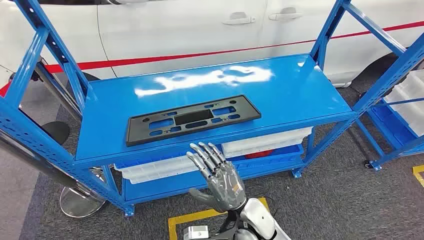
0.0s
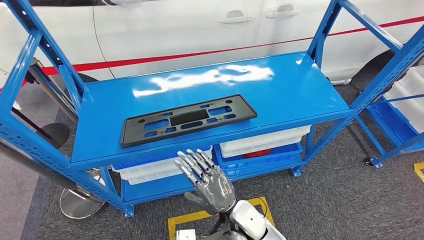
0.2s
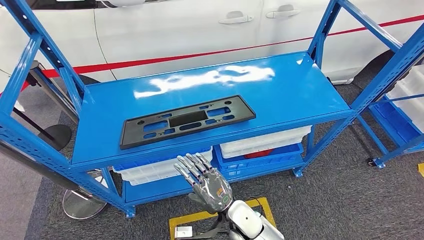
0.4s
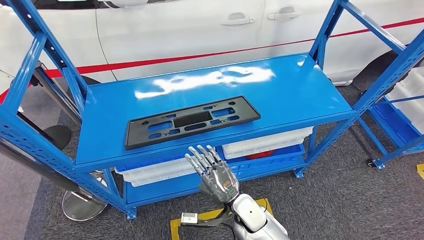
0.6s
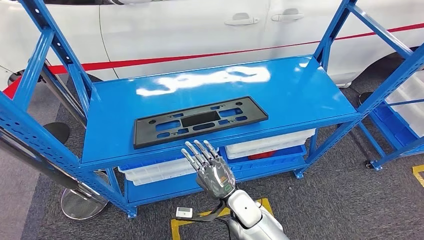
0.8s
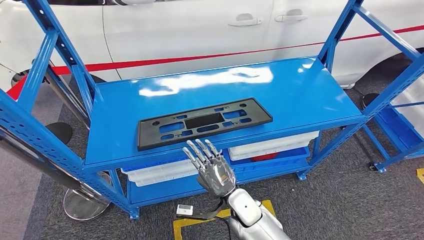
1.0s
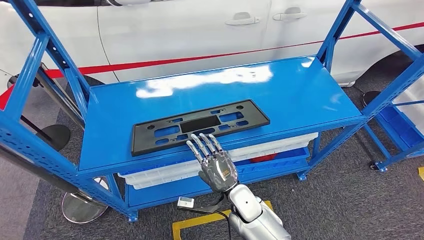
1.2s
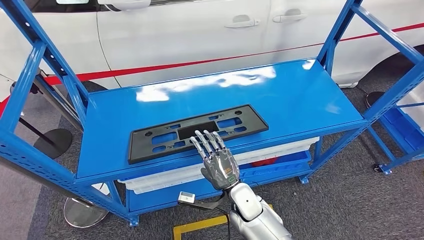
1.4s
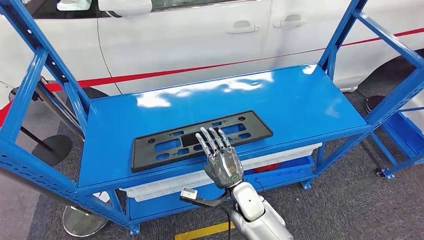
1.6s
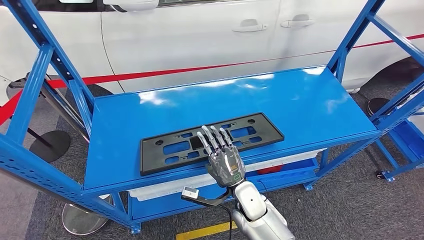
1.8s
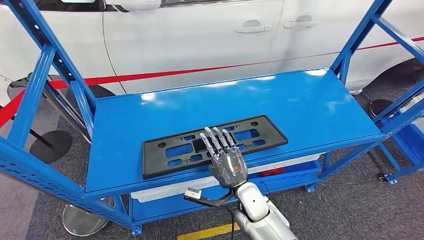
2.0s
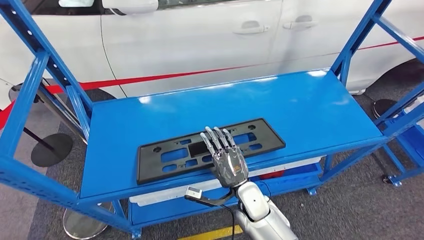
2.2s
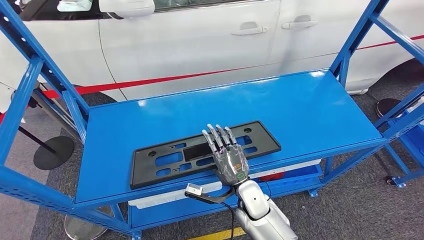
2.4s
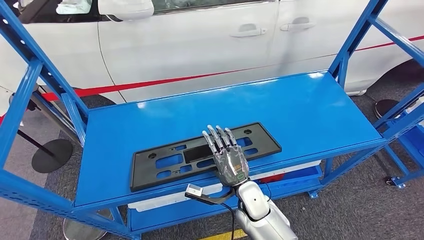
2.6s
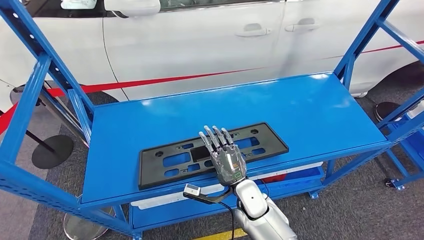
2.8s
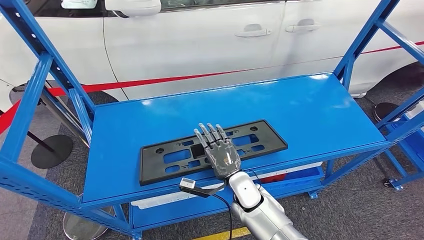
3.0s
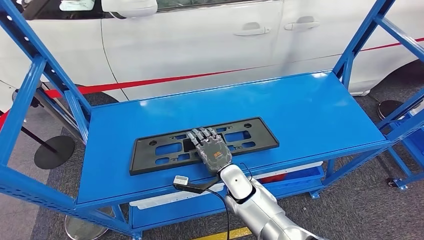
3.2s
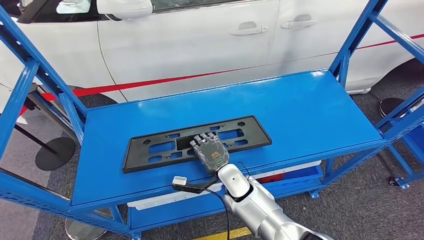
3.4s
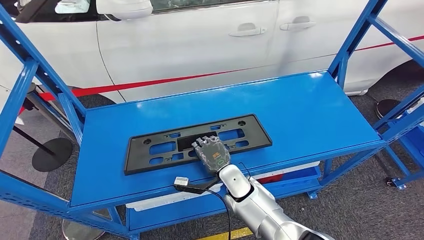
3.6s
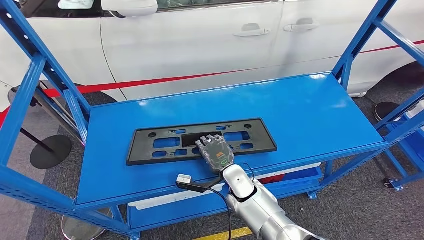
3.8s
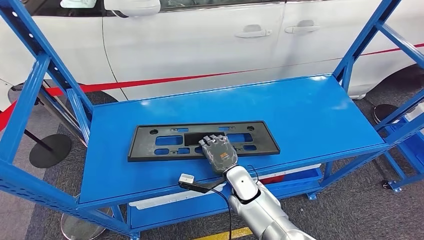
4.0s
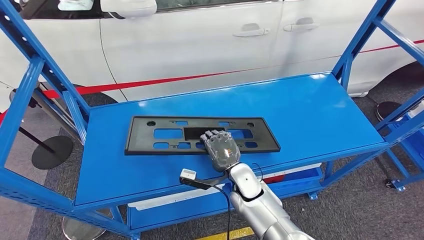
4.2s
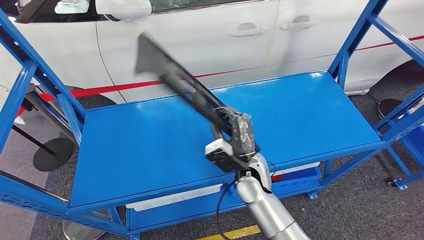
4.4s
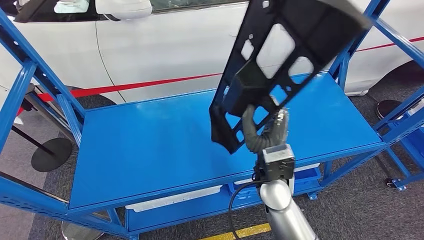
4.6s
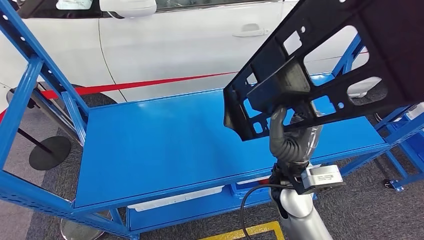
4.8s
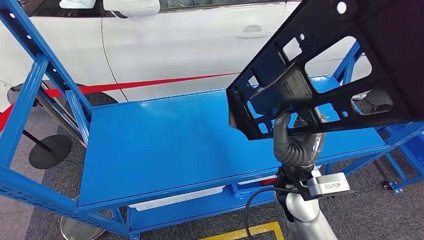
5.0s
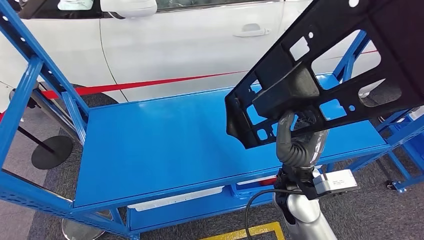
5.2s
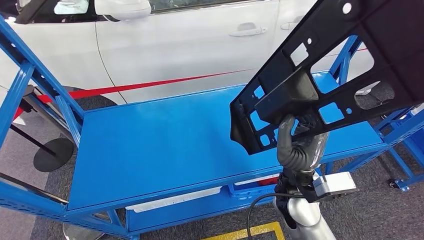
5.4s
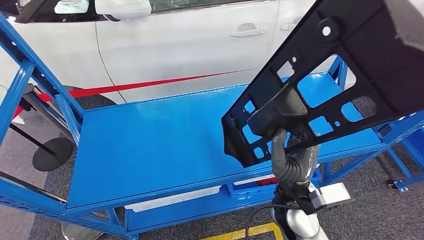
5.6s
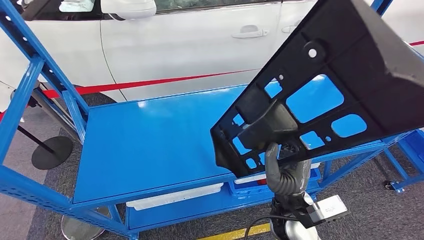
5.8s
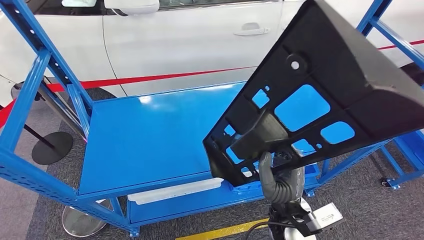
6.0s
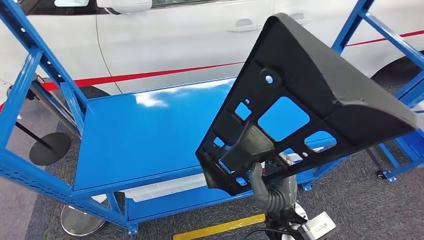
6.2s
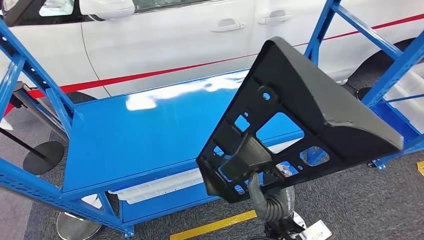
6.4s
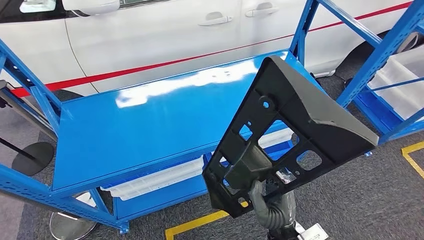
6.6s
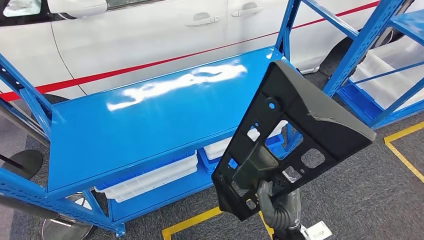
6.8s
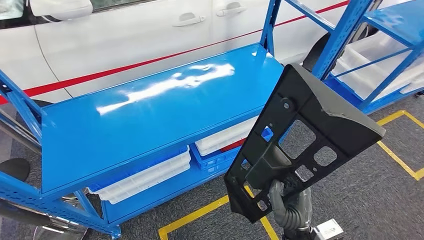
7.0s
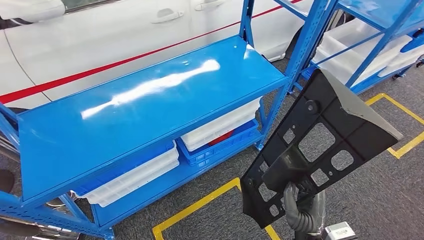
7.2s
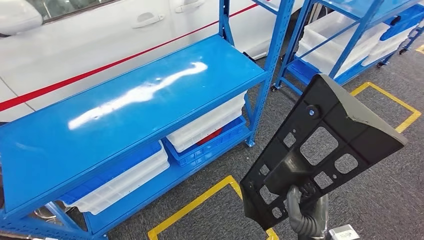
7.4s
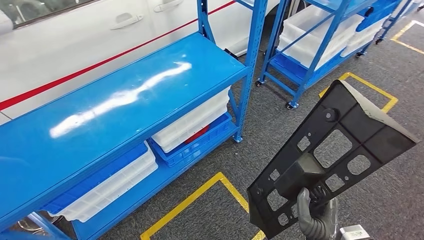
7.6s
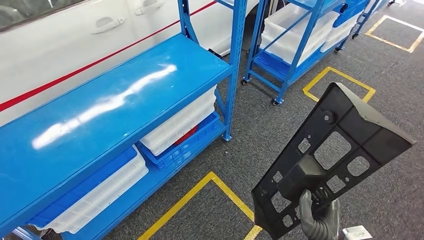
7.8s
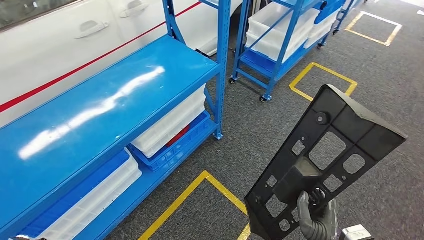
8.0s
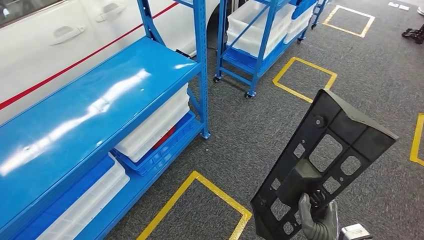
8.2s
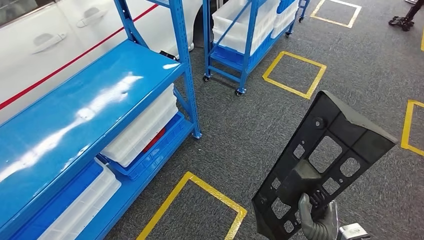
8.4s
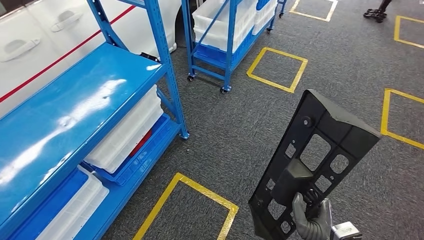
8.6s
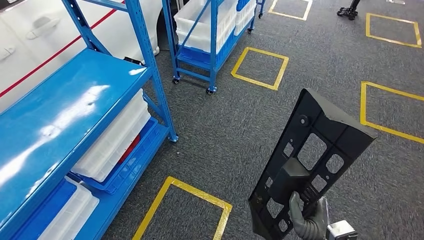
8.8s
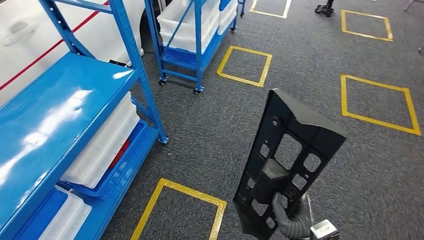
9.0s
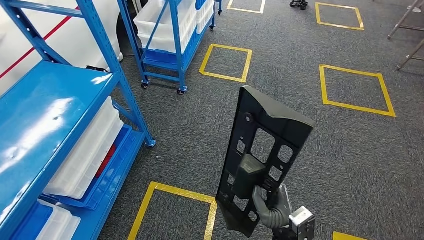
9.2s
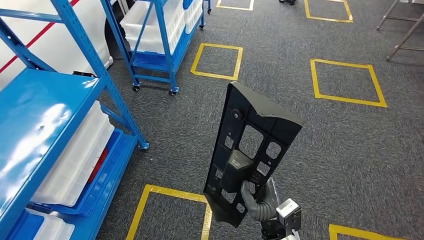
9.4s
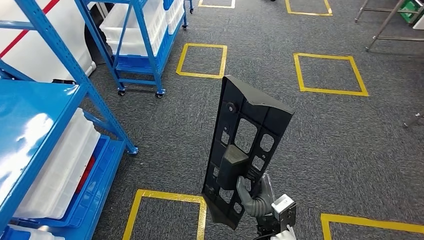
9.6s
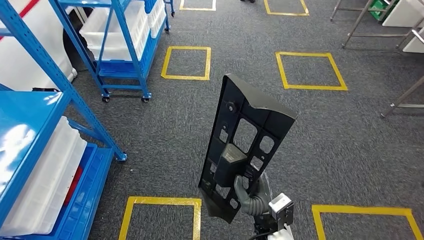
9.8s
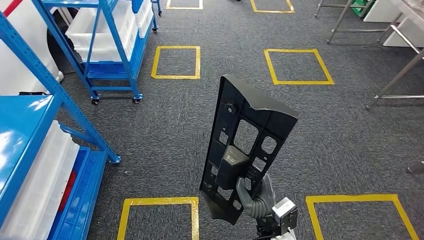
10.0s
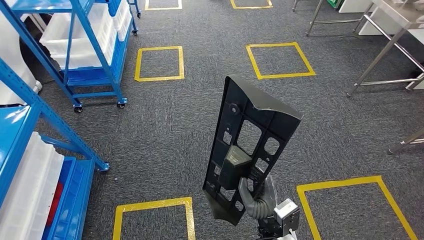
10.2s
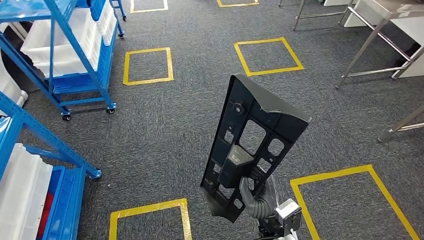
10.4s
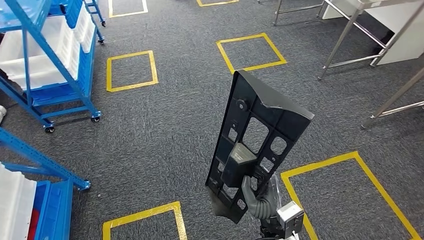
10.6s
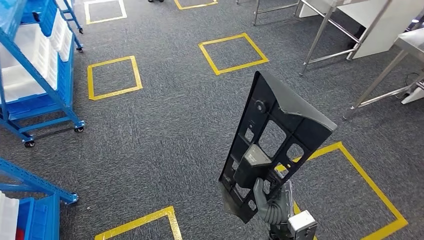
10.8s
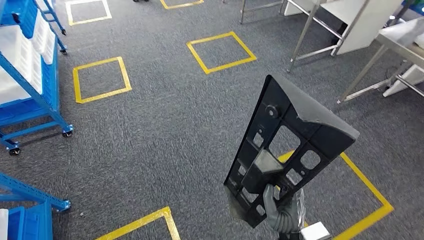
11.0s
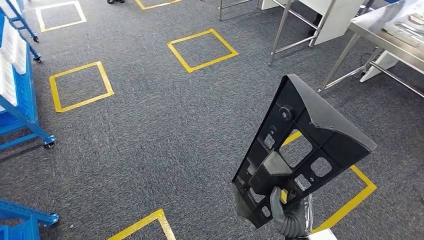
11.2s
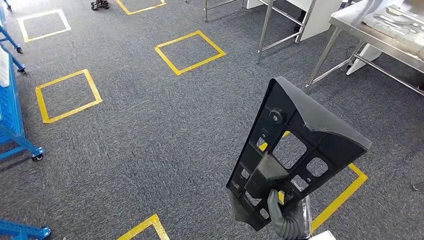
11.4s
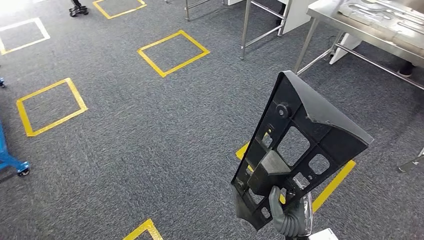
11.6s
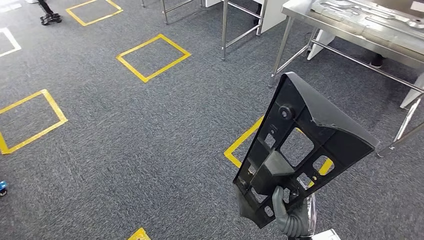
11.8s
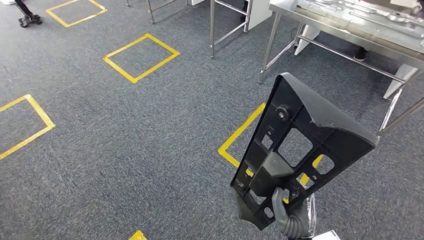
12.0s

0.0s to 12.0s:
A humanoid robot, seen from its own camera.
Step, 0.0s to 5.8s: Pick up the large material from the shelf.

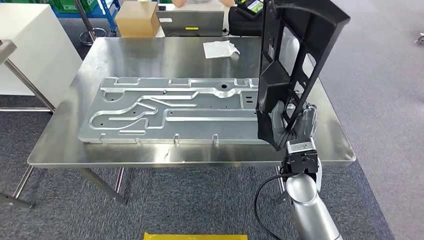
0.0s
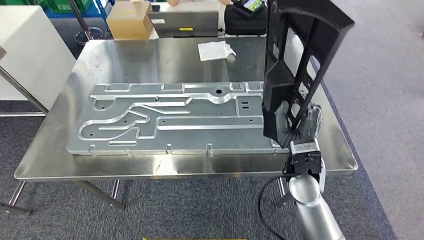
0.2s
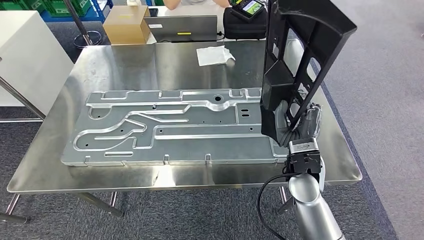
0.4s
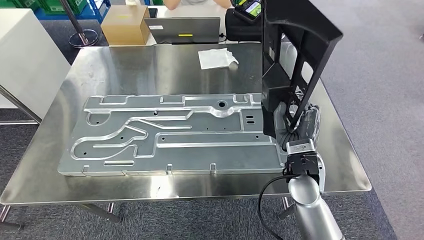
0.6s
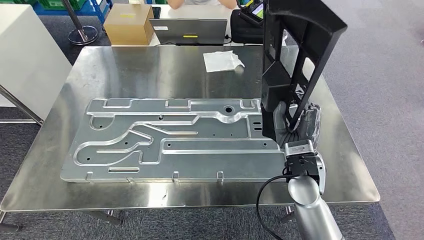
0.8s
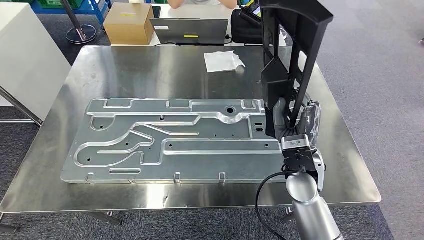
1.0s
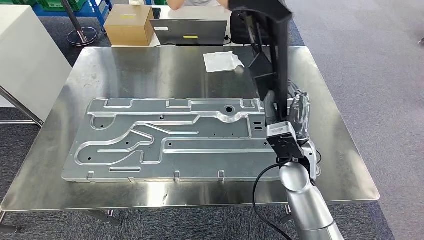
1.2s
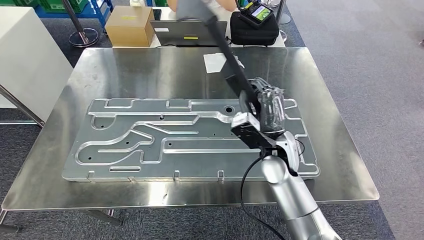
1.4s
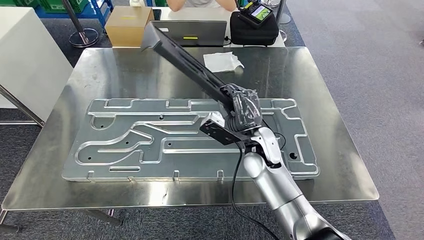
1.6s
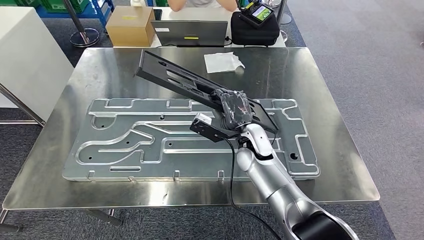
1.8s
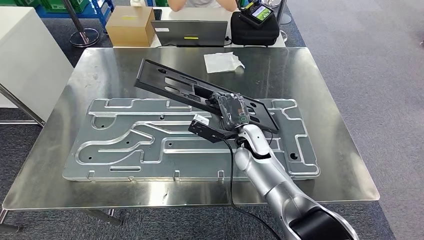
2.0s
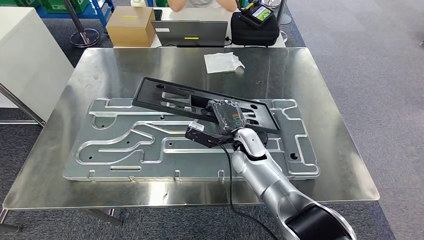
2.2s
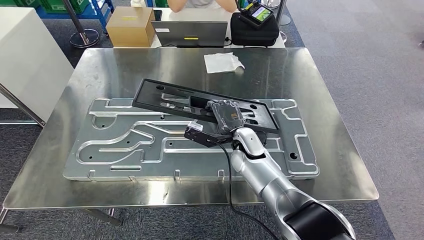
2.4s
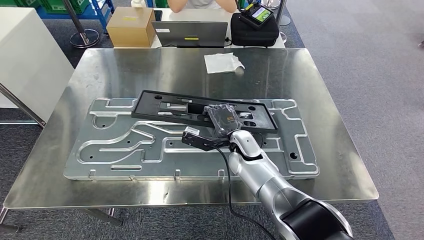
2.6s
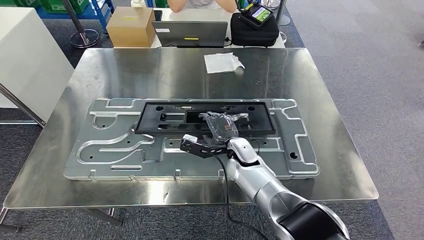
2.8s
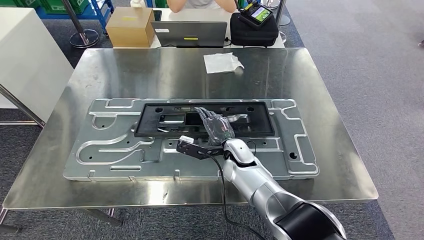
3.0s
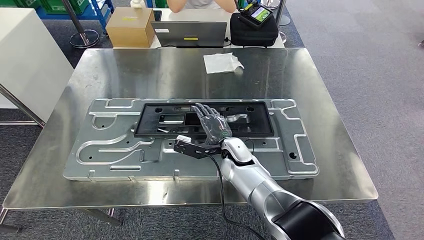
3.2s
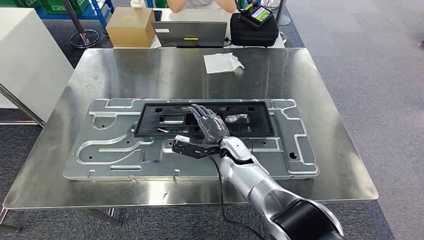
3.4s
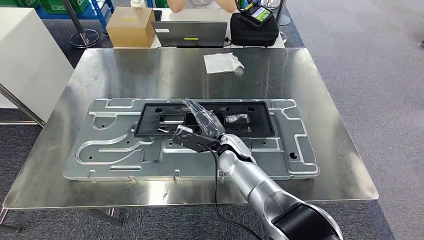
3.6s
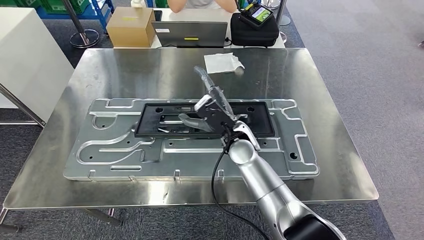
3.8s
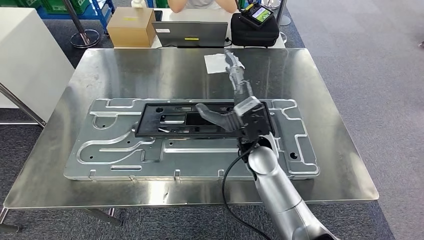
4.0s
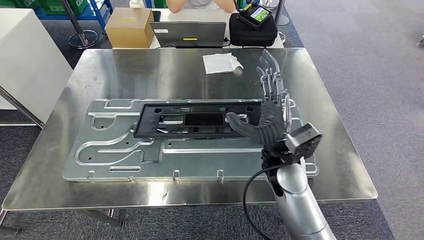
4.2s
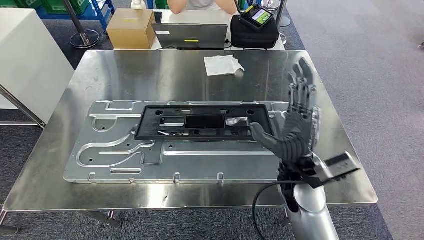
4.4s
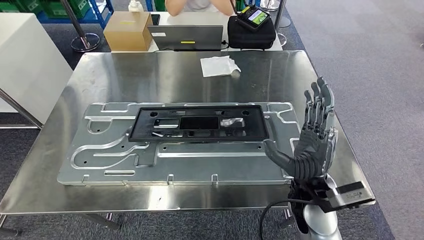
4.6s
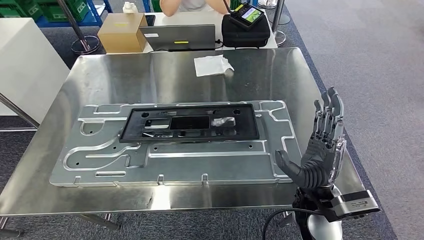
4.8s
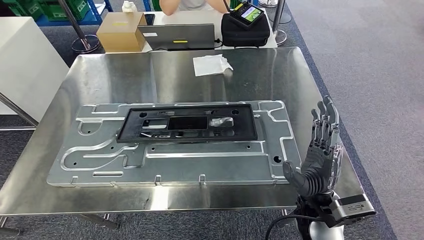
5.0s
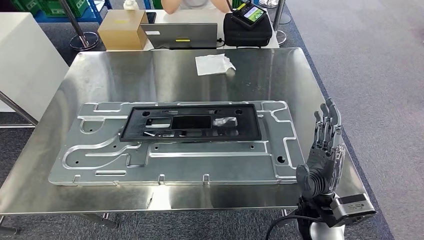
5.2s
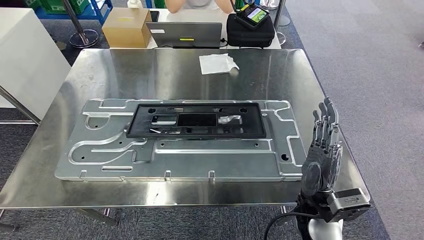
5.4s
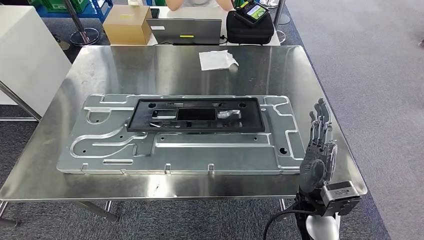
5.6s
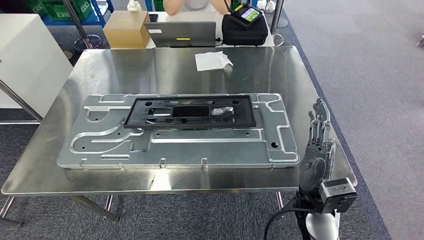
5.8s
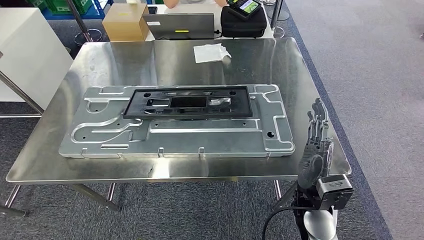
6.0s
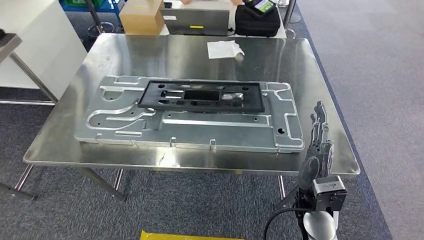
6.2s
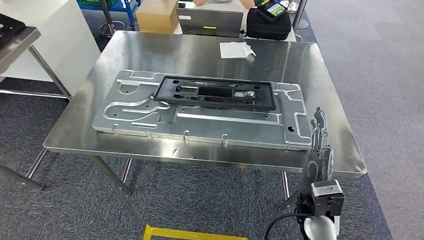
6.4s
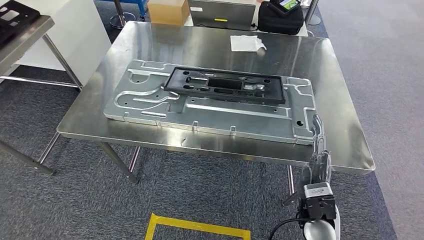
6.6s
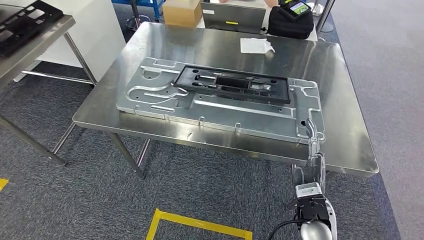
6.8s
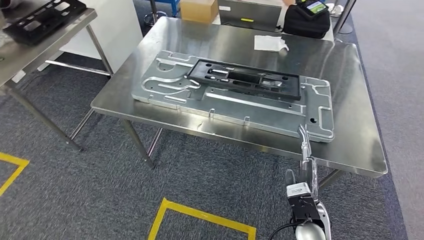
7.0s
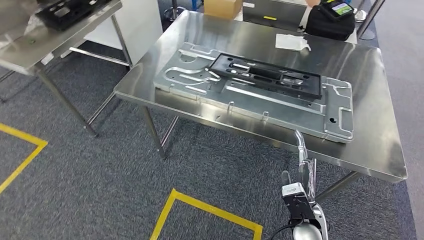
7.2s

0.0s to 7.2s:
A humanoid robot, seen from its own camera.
Step, 2.6s to 6.6s: Insert the large material into the corresponding slot on the workbench.
1.4s to 2.8s: The right hand moves downward, to the left and forward, about 15 cm.
